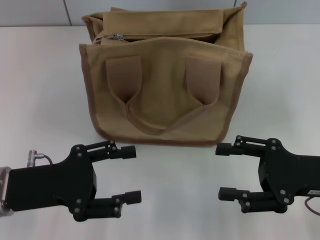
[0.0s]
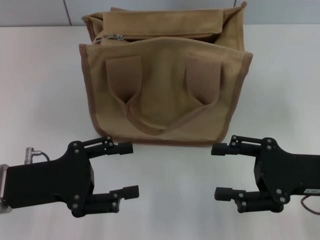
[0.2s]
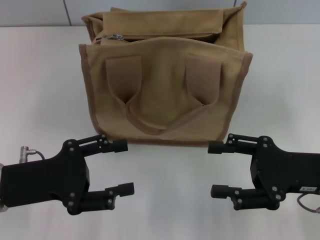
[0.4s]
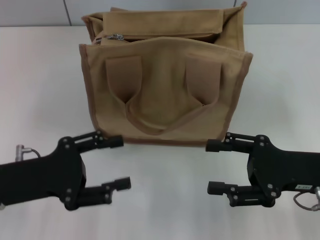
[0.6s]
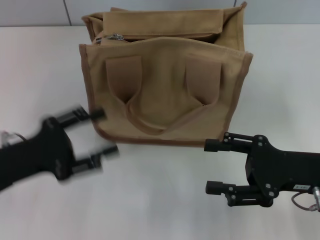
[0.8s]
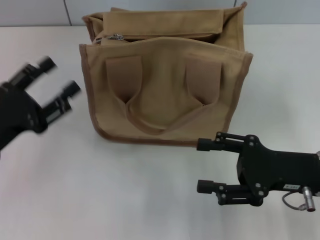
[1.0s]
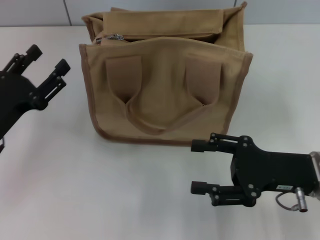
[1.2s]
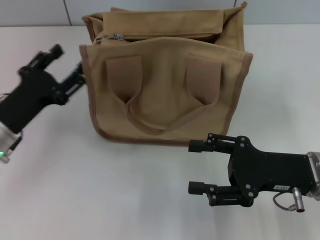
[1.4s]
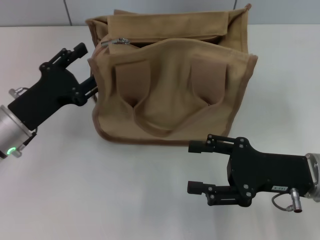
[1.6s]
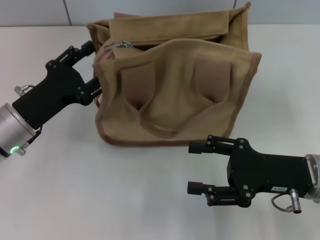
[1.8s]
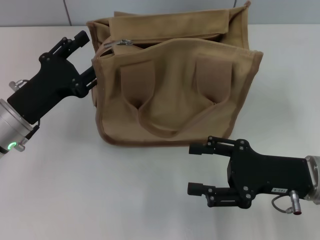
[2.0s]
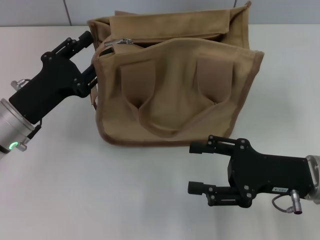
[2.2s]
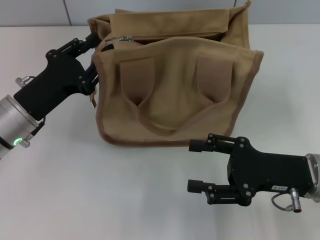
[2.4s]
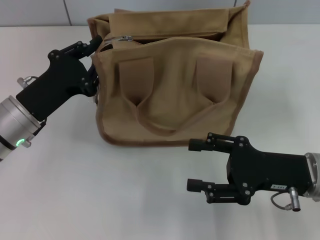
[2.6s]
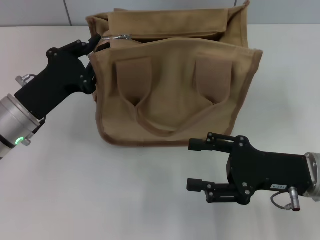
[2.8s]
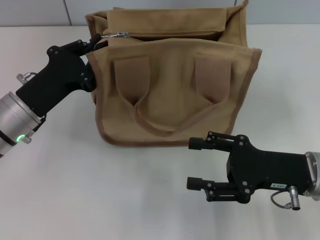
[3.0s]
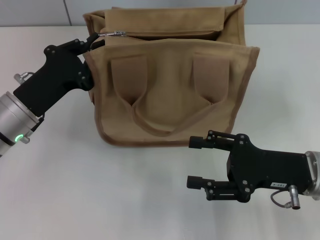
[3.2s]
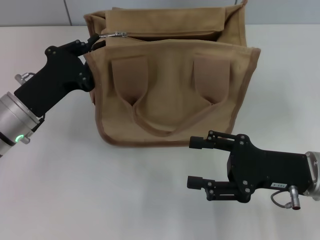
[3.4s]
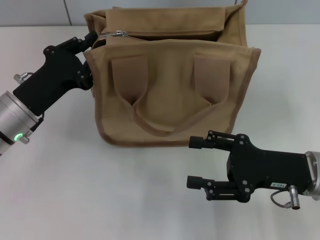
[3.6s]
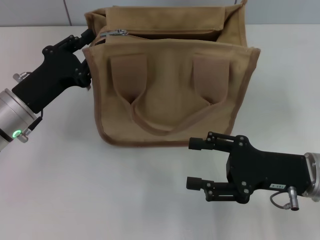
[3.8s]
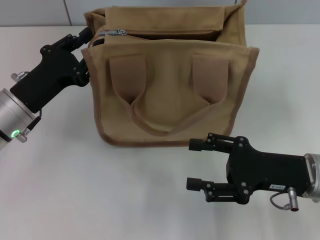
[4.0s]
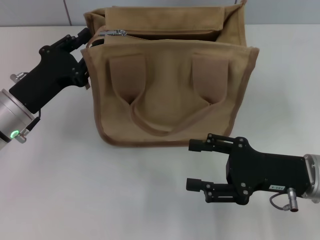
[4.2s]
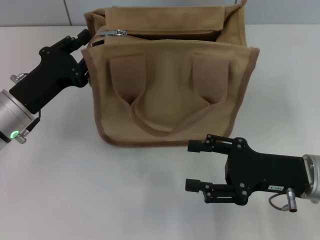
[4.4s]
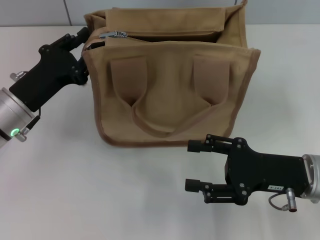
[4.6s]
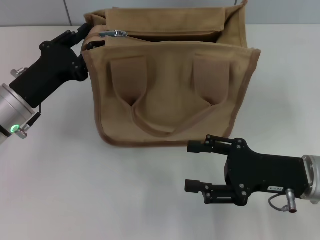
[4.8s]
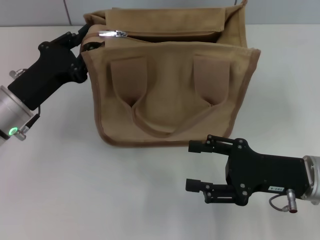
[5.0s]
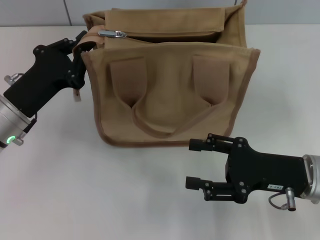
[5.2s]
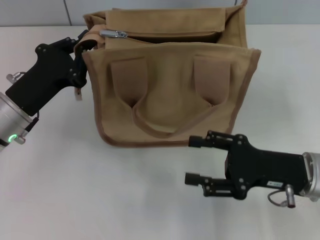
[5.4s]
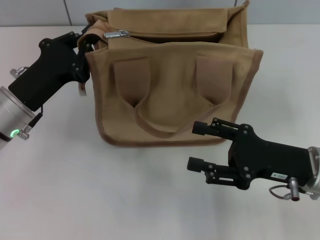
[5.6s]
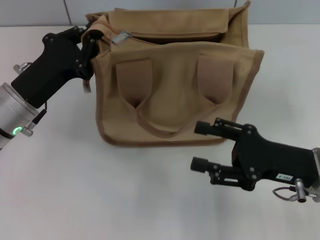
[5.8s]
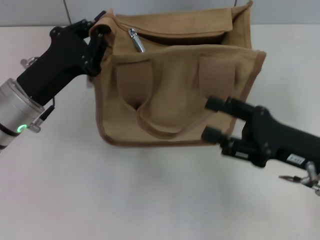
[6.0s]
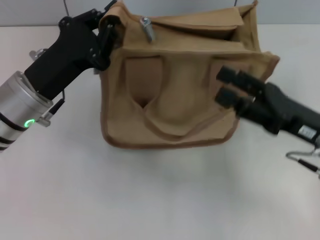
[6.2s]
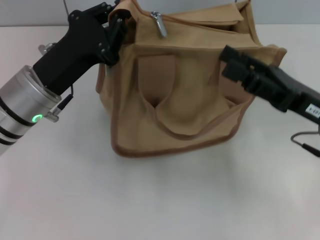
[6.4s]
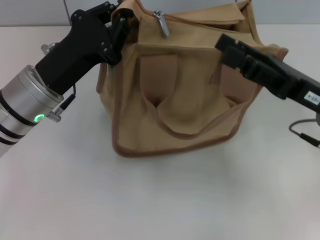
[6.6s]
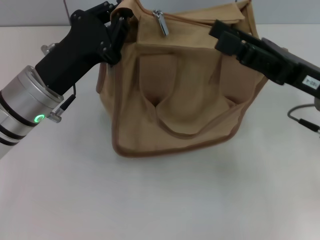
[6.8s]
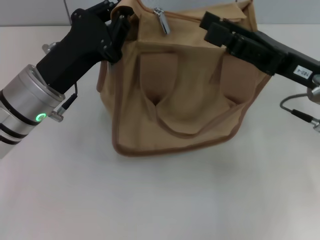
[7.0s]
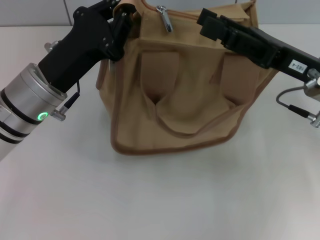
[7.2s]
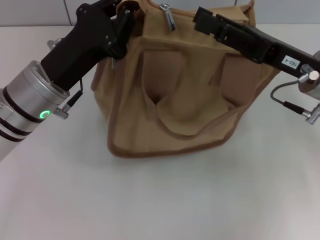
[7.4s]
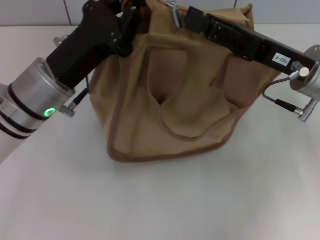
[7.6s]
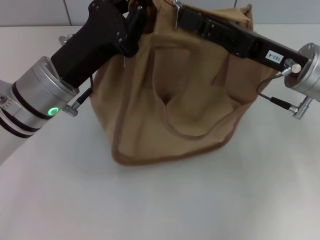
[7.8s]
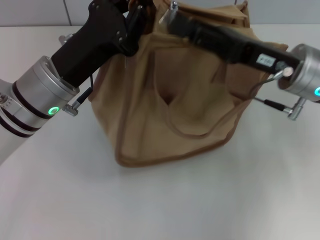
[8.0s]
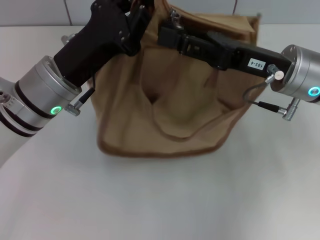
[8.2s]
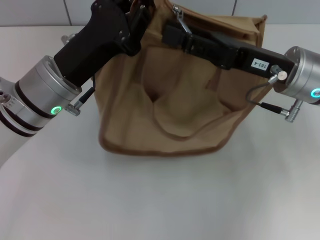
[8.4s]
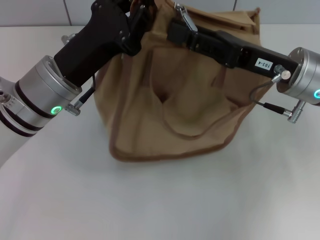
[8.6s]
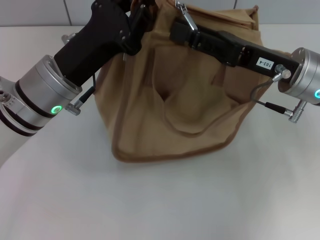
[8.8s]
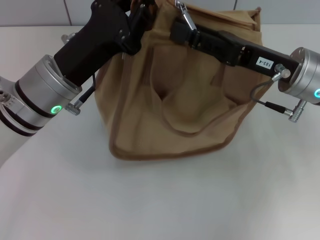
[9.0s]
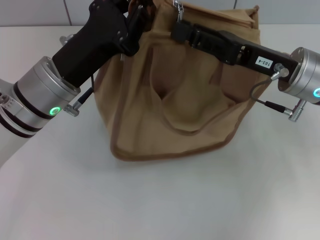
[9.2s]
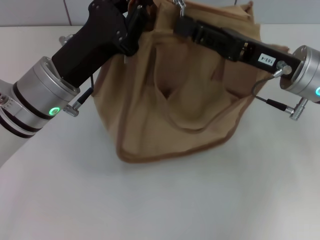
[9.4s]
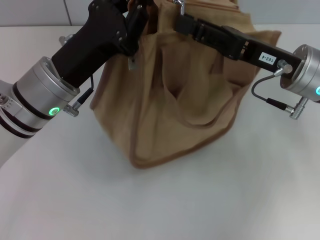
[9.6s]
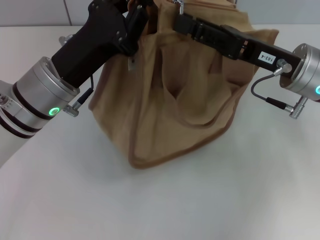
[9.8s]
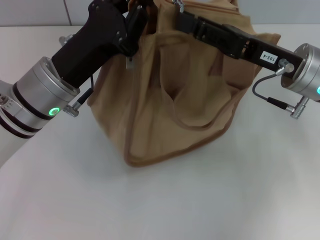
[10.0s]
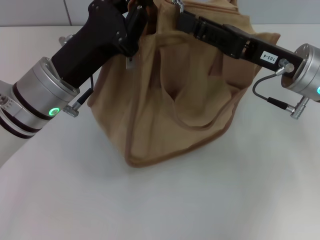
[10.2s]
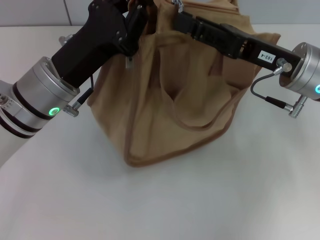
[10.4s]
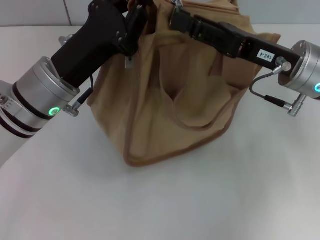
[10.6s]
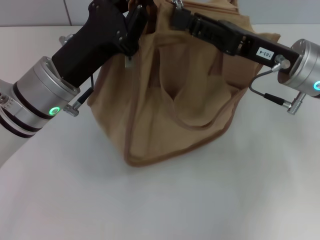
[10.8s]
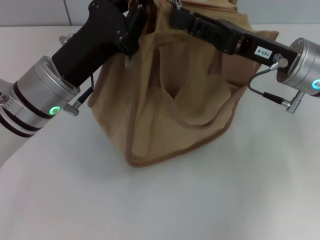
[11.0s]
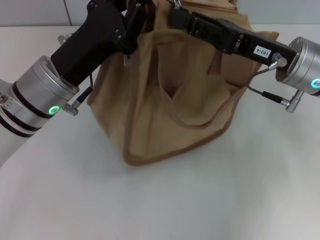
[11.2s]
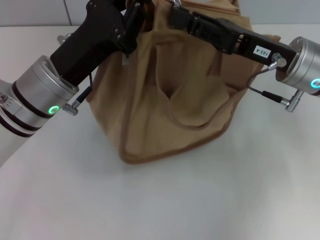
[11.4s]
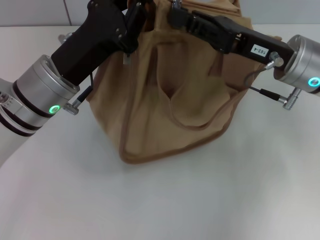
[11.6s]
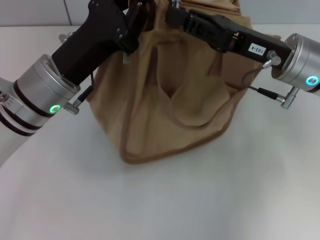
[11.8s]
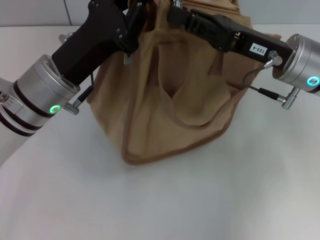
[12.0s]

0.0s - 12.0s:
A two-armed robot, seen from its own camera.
0.0s - 1.6s: The left gripper goes roughly 5 cm forward.
1.6s - 3.0s: The left gripper closes up.
3.0s - 4.4s: The grippers stay close to where they were, moving slightly.
4.4s - 6.0s: The left gripper closes its fingers.
6.0s - 7.6s: The left gripper changes place by approximately 5 cm; the right gripper heads forward and upward, covering approximately 10 cm.
7.6s - 9.0s: The grippers move only a little.
9.0s - 10.4s: The two grippers keep their place.
10.4s - 12.0s: The two grippers keep their place.

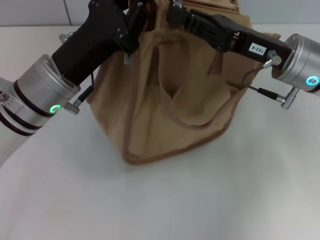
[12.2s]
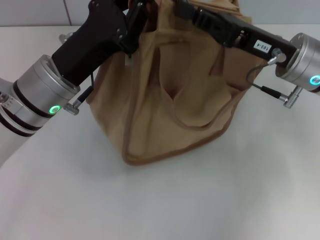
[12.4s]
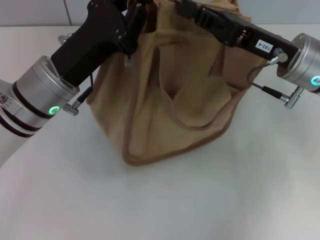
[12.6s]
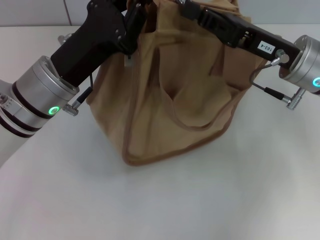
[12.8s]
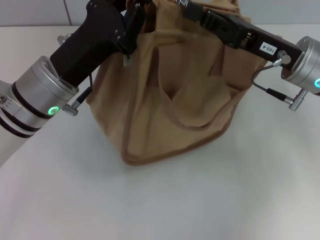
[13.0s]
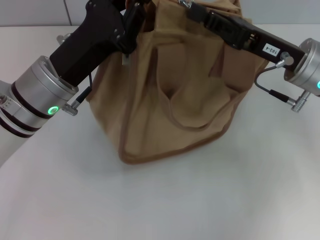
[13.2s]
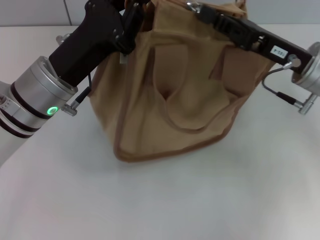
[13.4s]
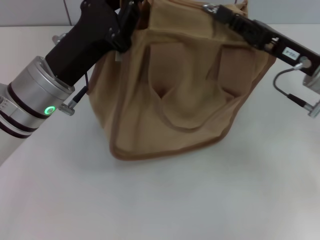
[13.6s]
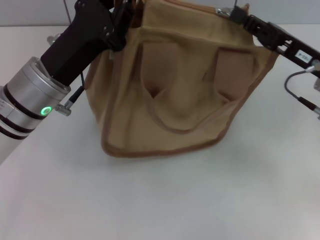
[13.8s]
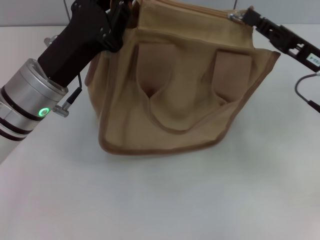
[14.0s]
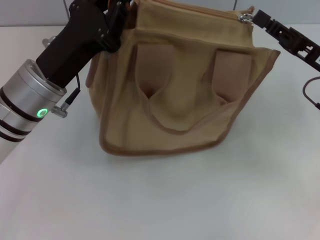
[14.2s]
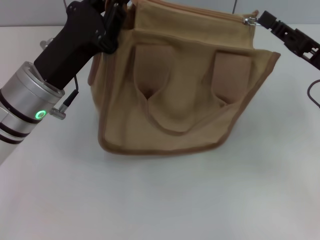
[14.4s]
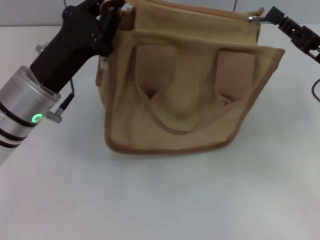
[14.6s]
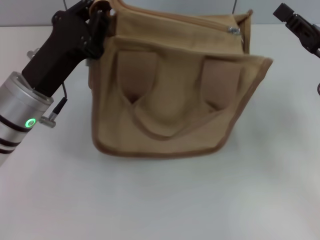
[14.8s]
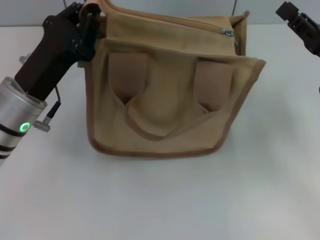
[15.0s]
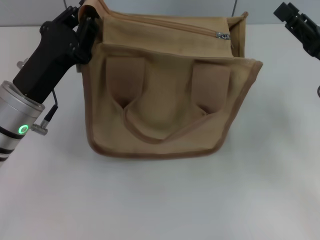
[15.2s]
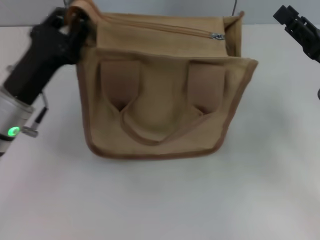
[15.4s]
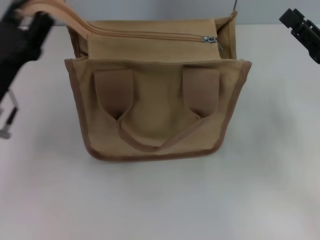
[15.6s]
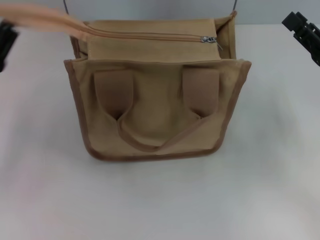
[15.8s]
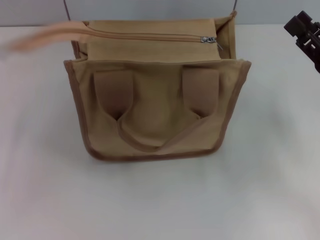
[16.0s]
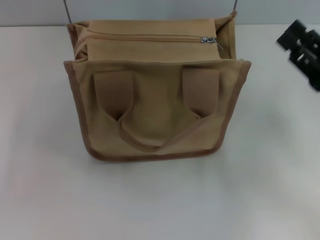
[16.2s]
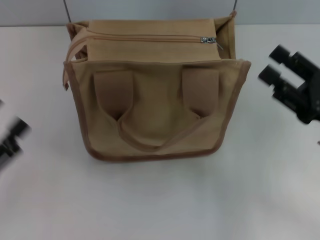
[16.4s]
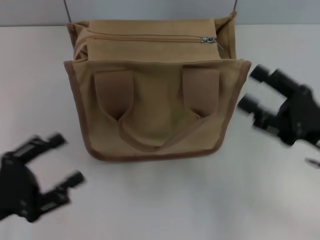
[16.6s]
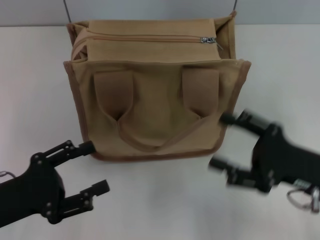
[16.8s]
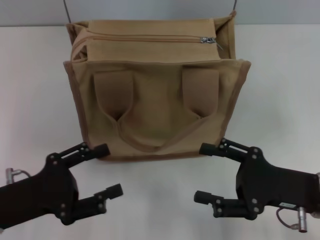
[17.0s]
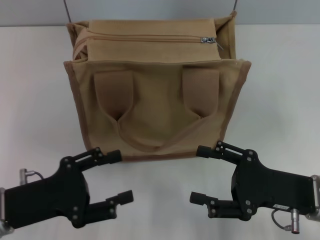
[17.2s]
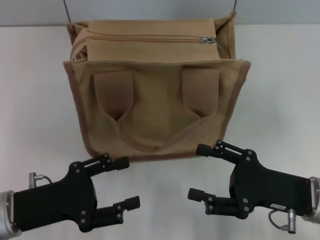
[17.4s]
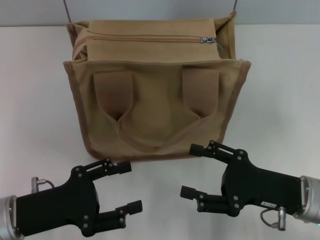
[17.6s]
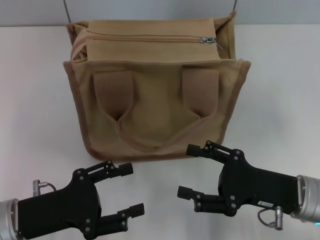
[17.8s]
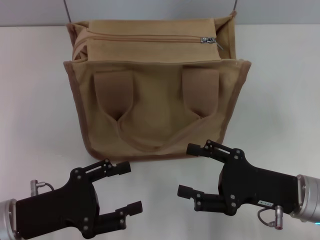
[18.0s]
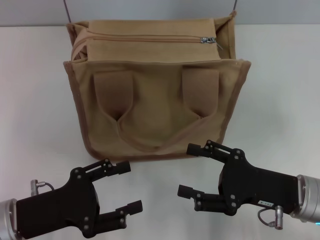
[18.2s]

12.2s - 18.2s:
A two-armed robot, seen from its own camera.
Step, 12.2s - 14.6s: Pull up the zipper with your right hand.
Step, 14.8s - 15.8s: Grab the zipper with your left hand.
12.2s - 13.8s: The right gripper travels to the right by some 5 cm.
15.2s - 16.6s: The left gripper goes roughly 15 cm backward and to the left, and opens; the right gripper heads backward, covering approximately 5 cm, and opens up.
16.6s - 18.2s: The right gripper is displaced to the left by approximately 5 cm; the left gripper travels to the right by about 5 cm.

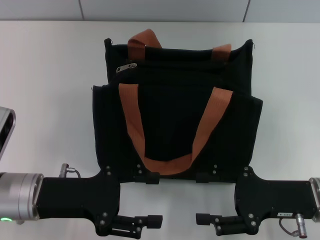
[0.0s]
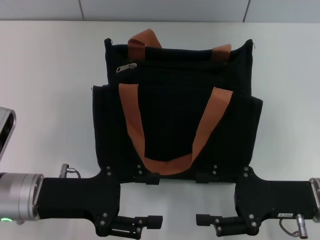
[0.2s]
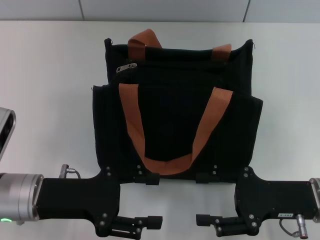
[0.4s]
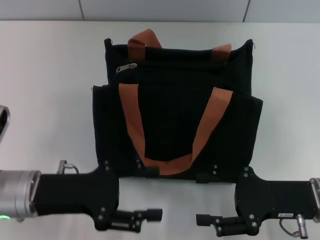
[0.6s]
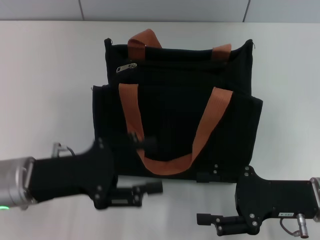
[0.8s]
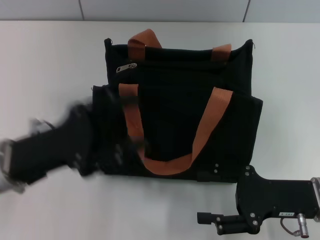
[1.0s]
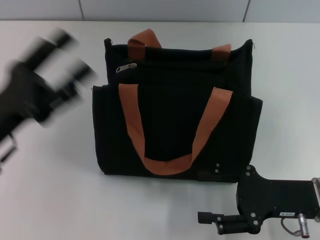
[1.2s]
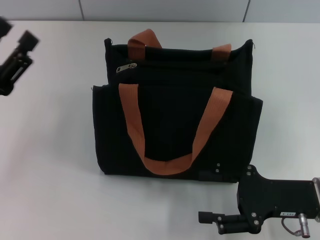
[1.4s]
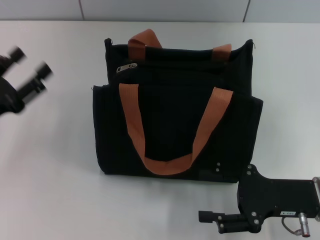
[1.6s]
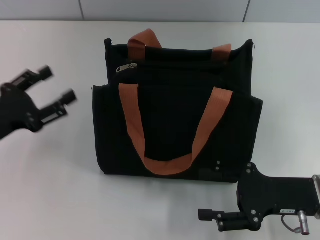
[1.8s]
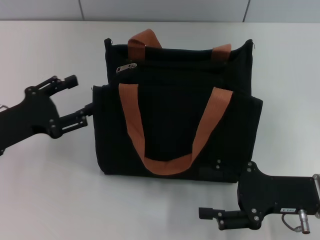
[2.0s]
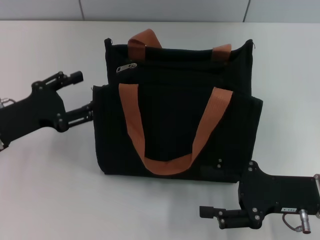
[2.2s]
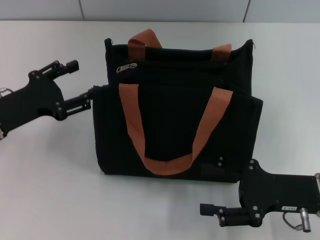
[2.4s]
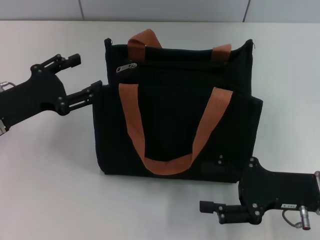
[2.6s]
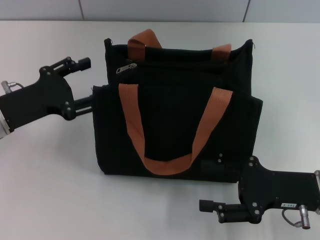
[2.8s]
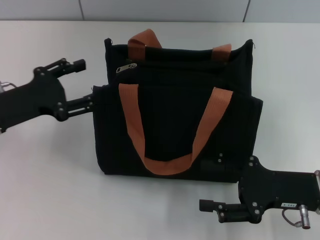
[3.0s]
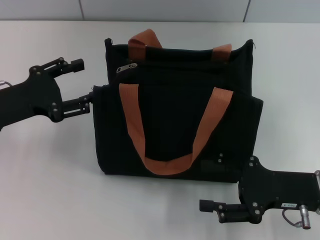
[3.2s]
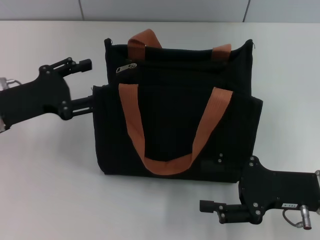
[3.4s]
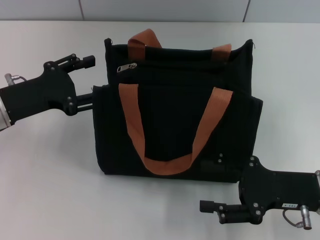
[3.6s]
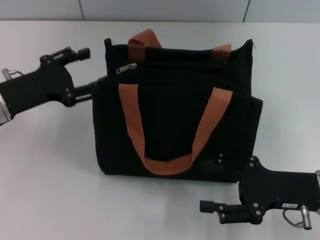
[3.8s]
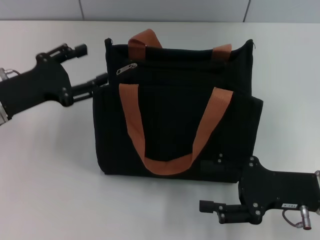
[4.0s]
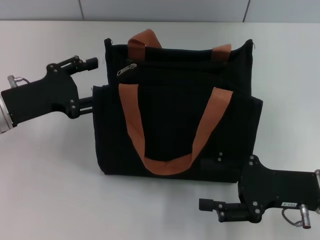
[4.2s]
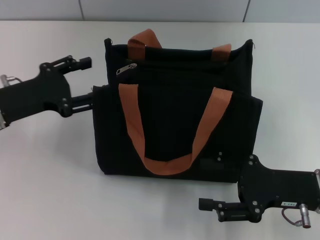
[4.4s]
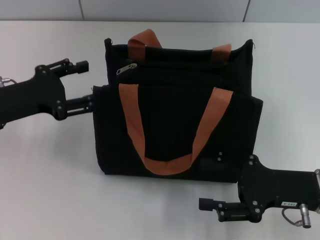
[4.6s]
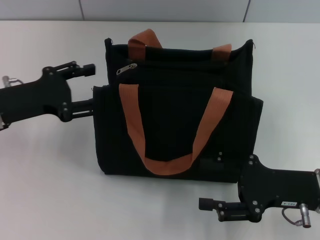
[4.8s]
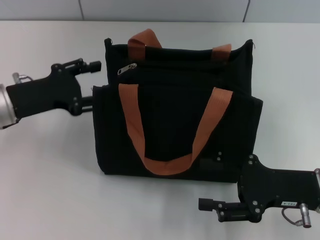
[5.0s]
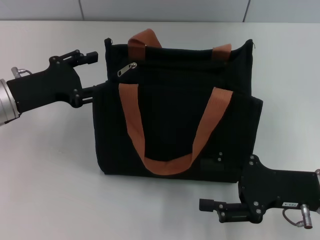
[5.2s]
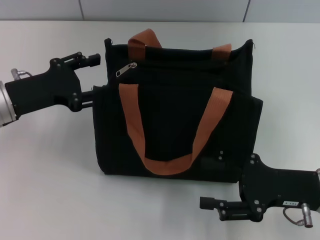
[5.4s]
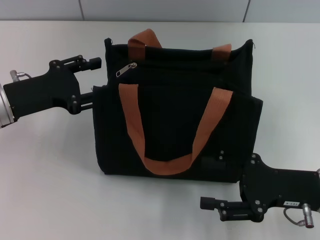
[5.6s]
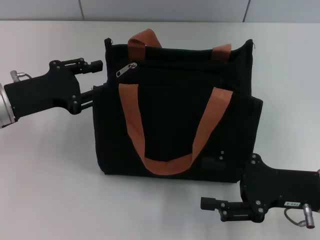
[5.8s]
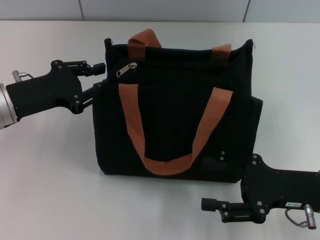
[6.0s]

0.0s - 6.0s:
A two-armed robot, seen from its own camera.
0.0s - 1.6s: The left gripper moves to the left, some 10 cm.
1.6s - 3.0s: The left gripper moves roughly 5 cm.
3.0s - 4.4s: The grippers make only small movements.
4.4s - 6.0s: The left gripper closes.
